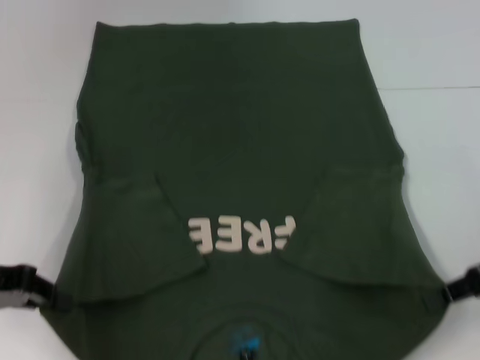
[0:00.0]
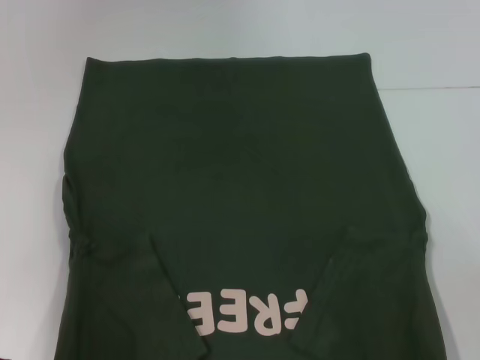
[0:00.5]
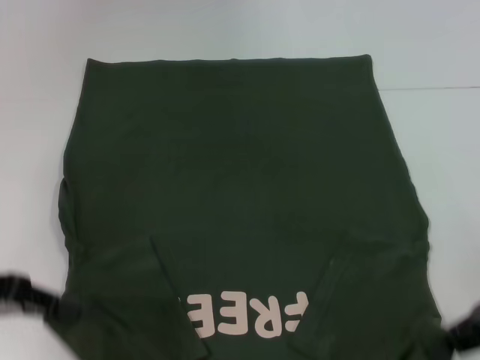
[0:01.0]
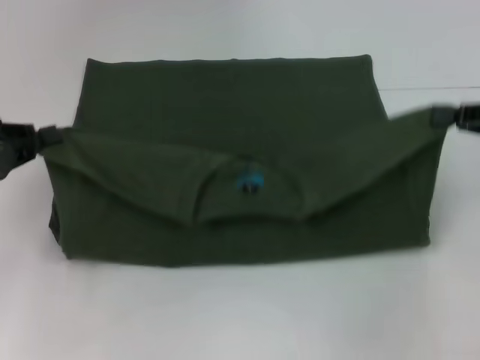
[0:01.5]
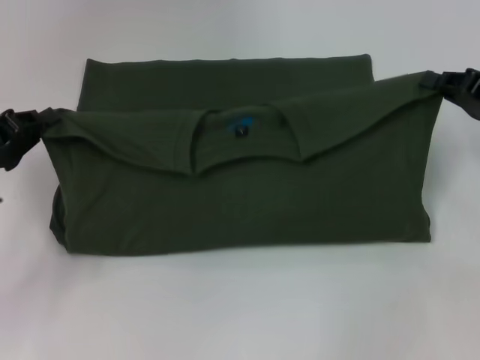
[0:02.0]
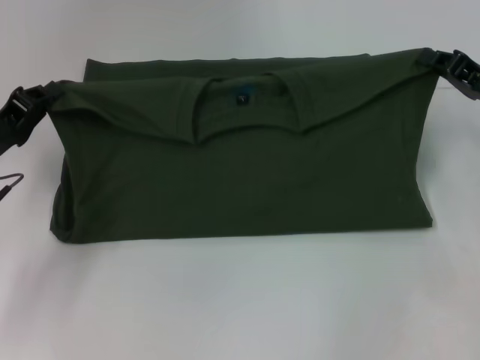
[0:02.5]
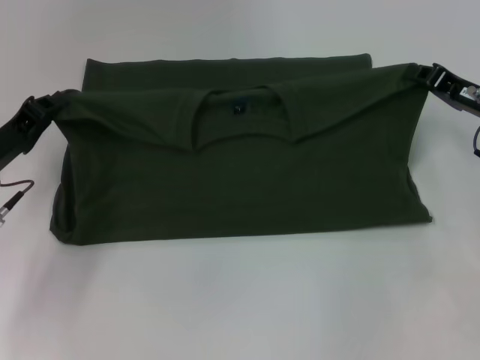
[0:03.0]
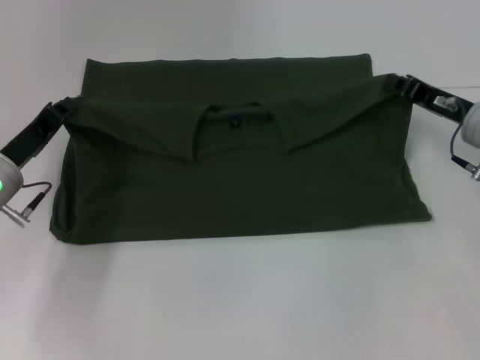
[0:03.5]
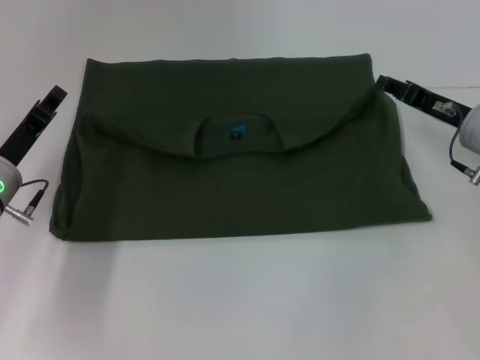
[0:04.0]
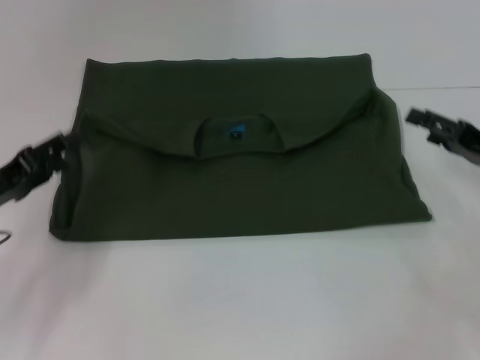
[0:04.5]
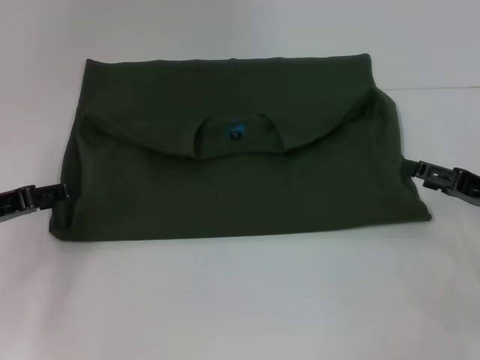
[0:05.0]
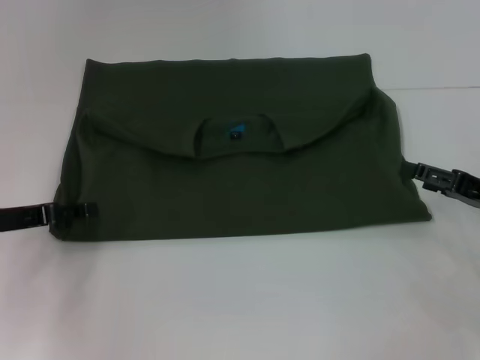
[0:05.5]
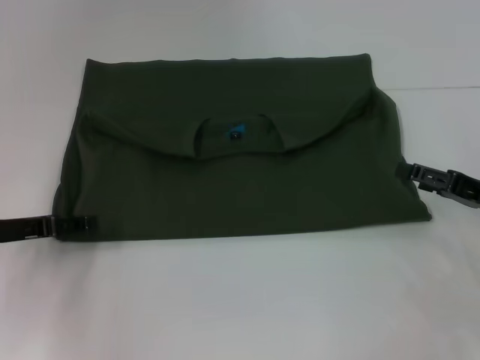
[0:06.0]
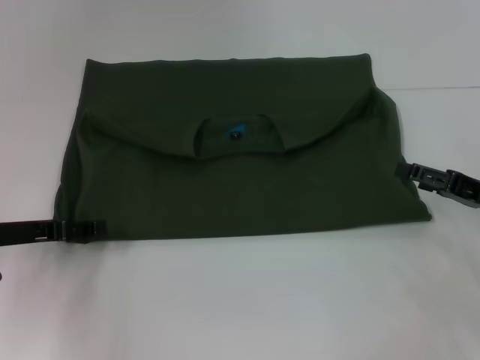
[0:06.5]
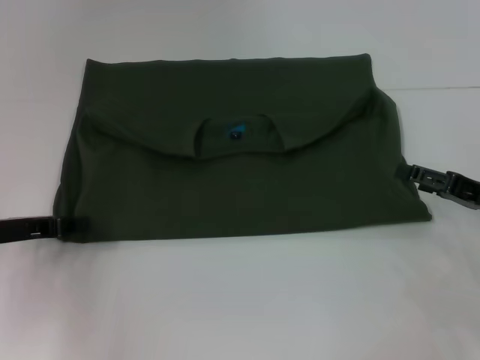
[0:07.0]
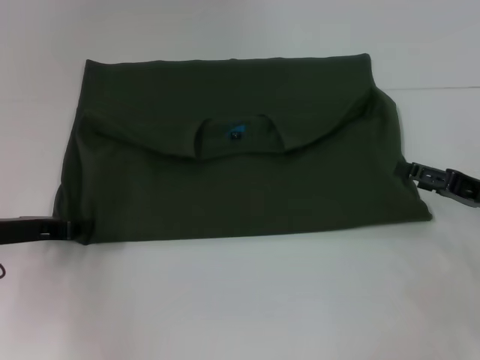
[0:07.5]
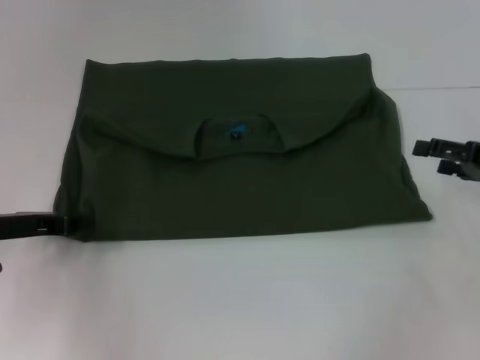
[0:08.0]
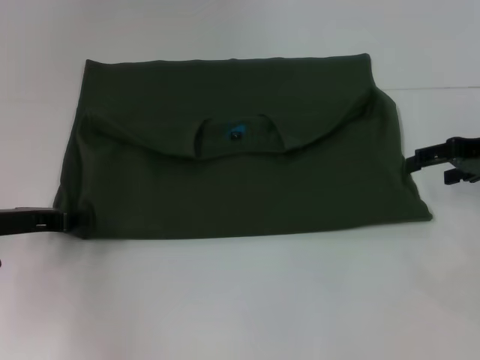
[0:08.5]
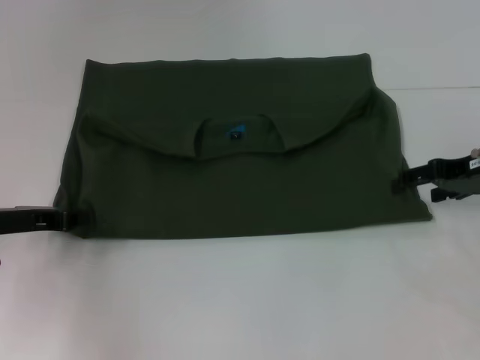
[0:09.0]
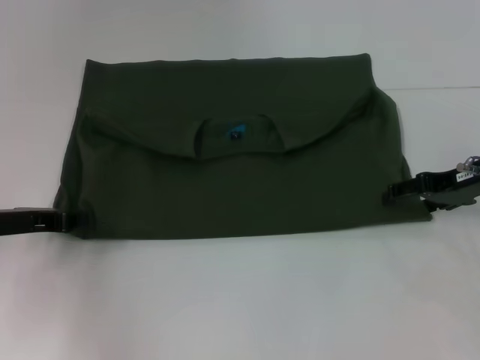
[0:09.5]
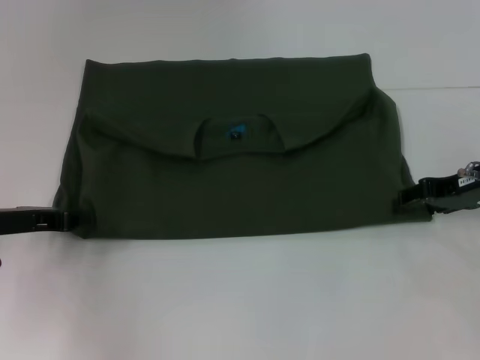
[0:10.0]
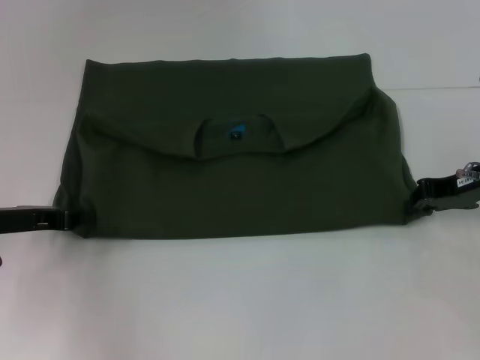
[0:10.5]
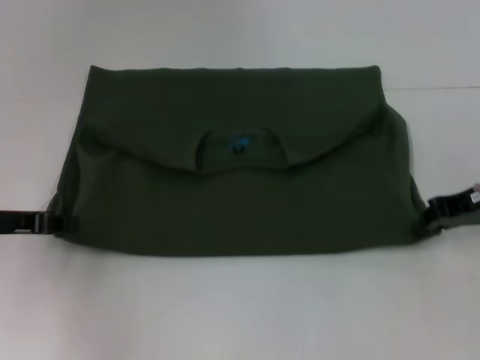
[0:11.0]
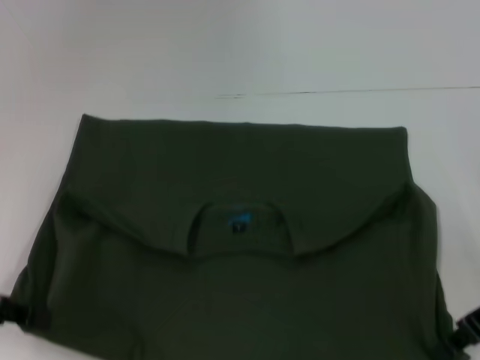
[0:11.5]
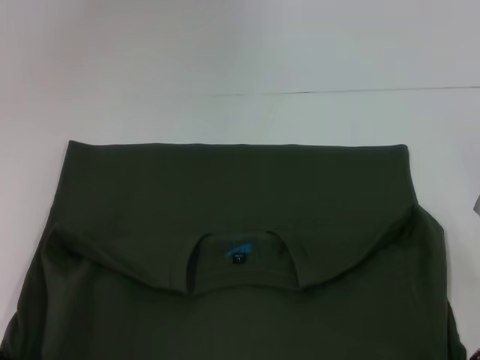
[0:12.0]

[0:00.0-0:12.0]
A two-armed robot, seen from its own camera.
Step, 0.0 to 4.0 s: Fold the clothes with your left hand.
Step, 0.0 to 4.0 s: Fold the clothes with your right hand.
Step, 4.5 to 11.5 s: Pull the clothes with your left hand.
Step, 4.5 to 11.5 s: Pull the clothes with your right hand.
0.0 to 2.0 s: The left gripper moves approximately 5 cm. Meanwhile the right gripper is displaced forward by approximately 5 cm.
2.0 to 4.0 s: The right gripper moves to the left, roughly 5 cm. The left gripper heads to the right, covering some 5 cm.
4.0 to 6.0 s: The left gripper moves roughly 5 cm, and opens up, while the right gripper is displaced backward and to the right by roughly 10 cm, and opens its fingers.
6.0 to 8.0 s: The right gripper changes place by about 5 cm.
8.0 to 10.0 s: The right gripper goes some 5 cm to the left.
10.0 to 12.0 s: Both grippers move backward, approximately 10 cm. The right gripper closes.

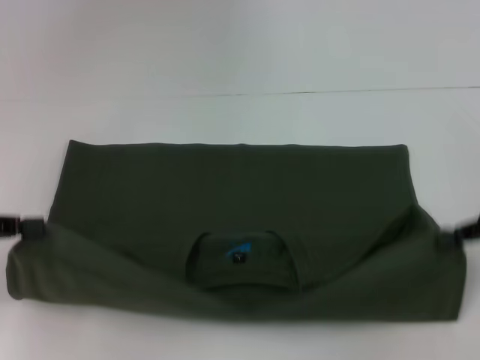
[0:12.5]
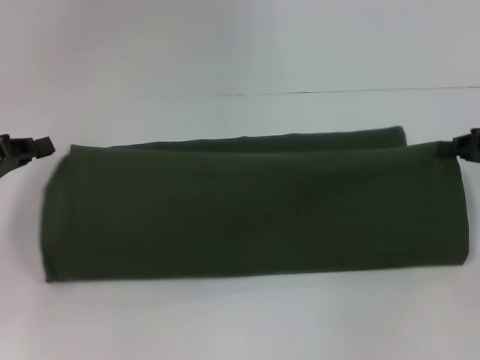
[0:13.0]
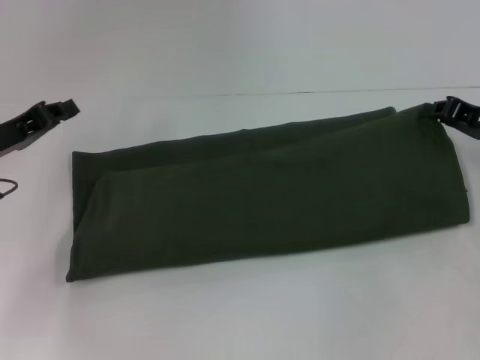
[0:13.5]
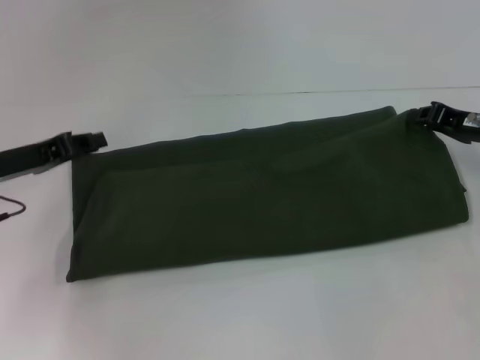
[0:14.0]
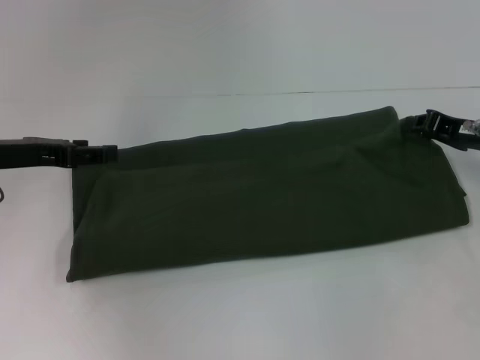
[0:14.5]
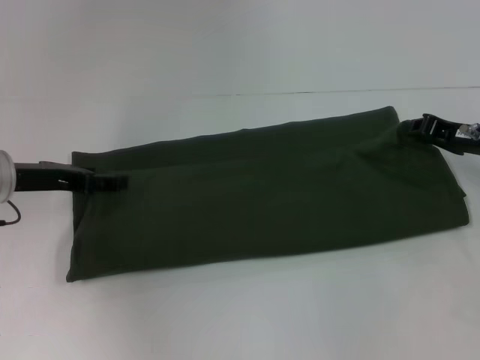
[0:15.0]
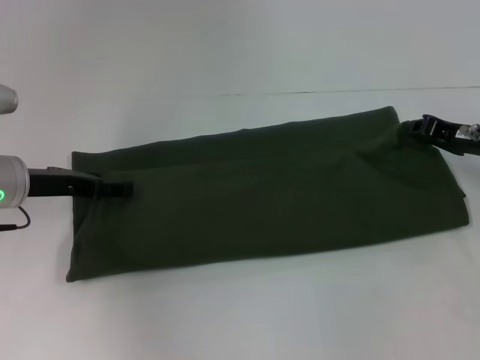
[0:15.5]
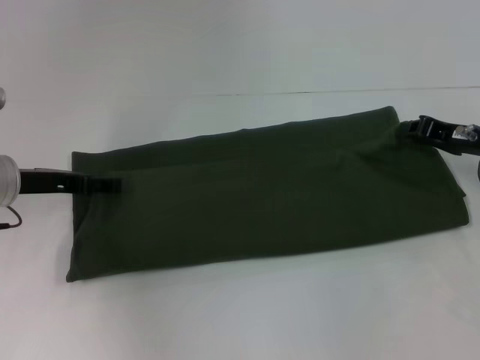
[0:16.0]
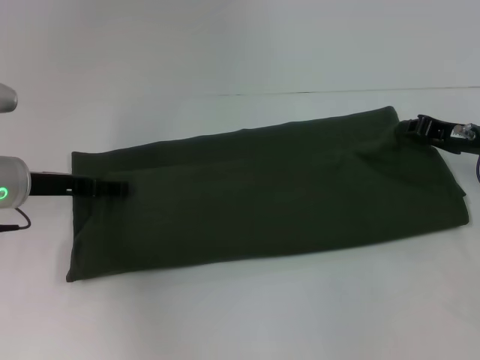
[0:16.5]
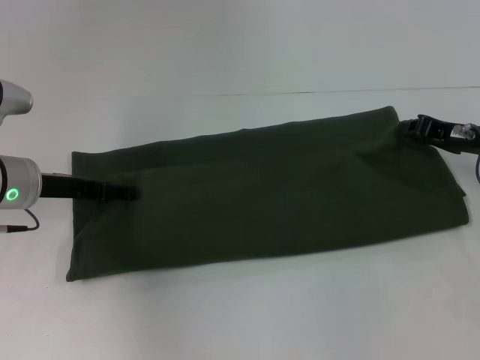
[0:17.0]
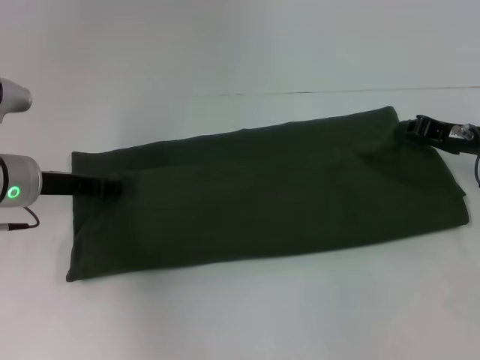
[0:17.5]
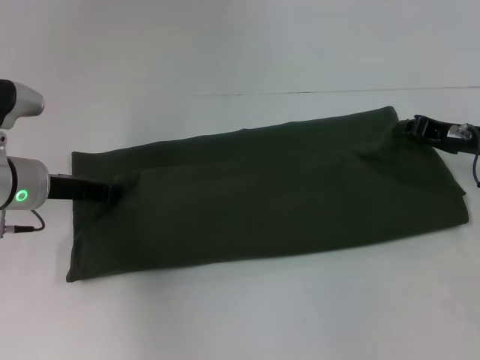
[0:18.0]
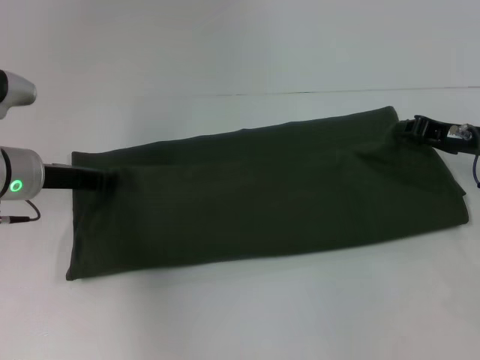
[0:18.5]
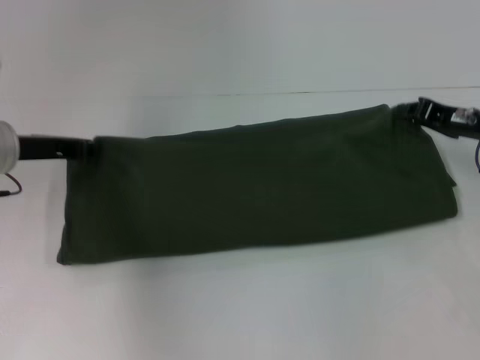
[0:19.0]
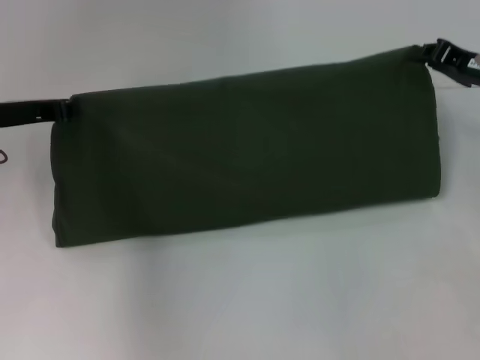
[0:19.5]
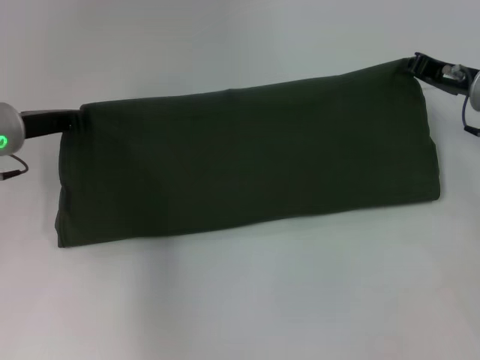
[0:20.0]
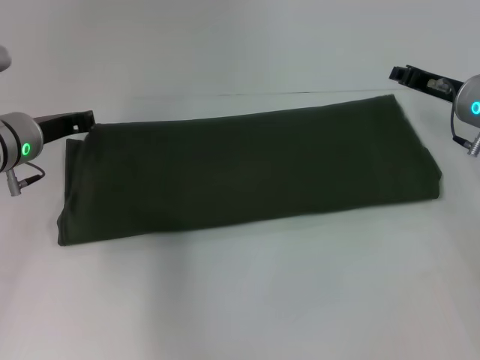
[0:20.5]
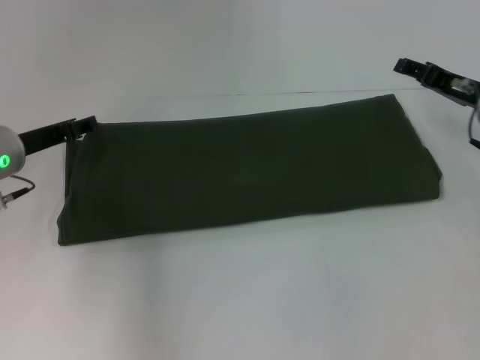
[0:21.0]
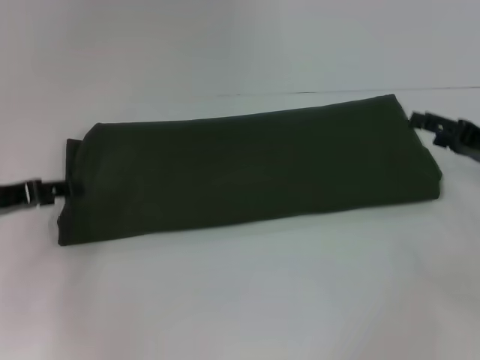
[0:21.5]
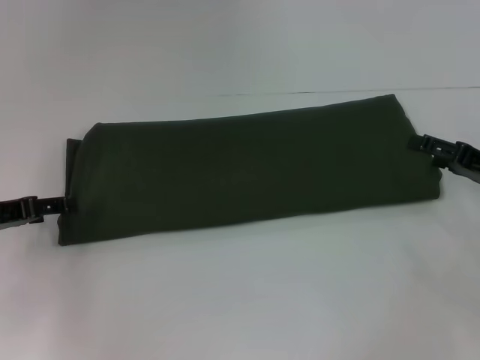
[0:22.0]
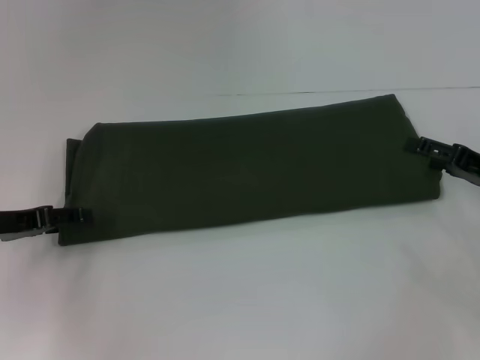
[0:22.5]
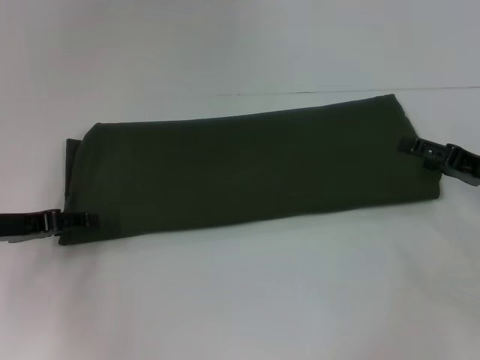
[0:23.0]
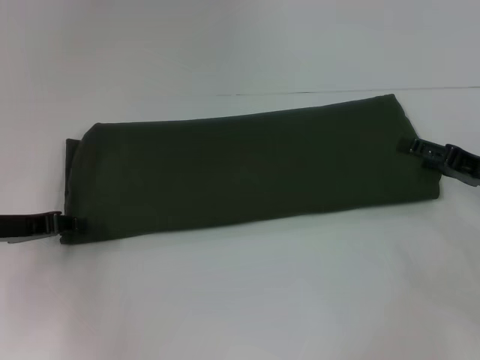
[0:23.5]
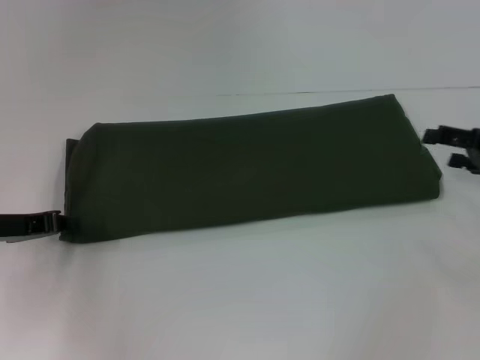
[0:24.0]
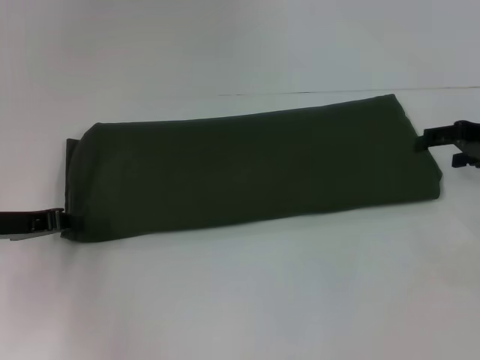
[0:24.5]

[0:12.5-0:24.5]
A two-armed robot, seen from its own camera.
Step, 12.5 to 20.0 s: Fold the clothes with your left hand.
Step, 12.5 to 20.0 s: Fold the clothes with your right hand.
12.5 to 14.5 s: The left gripper travels forward and to the right by about 10 cm, and opens; the right gripper heads forward, covering approximately 5 cm.
14.5 to 16.5 s: The left gripper ends up some 5 cm from where it was.
16.5 to 18.5 s: The left gripper closes up.
18.5 to 20.5 s: The right gripper changes place by about 5 cm.
20.5 to 22.5 s: The left gripper travels backward and to the left by approximately 10 cm, and opens up. Meanwhile the right gripper moves backward and to the right, some 10 cm, and opens.
22.5 to 24.5 s: The right gripper heads upward and forward, covering some 10 cm.

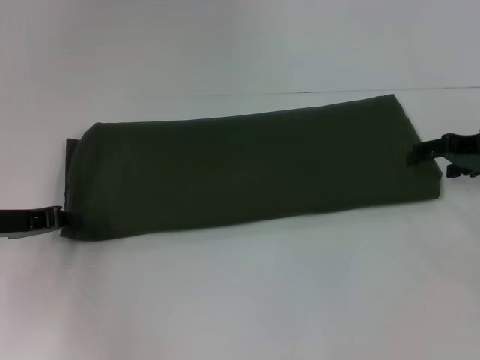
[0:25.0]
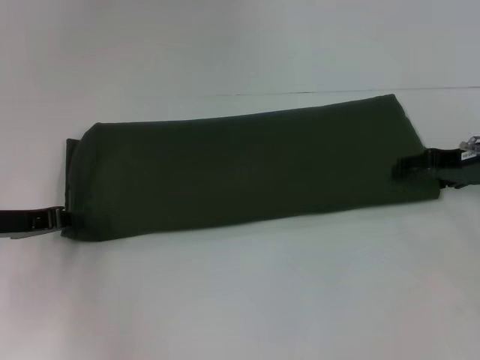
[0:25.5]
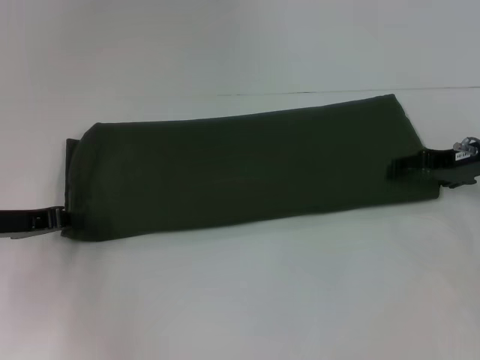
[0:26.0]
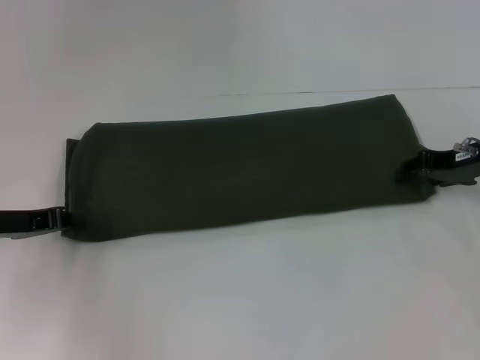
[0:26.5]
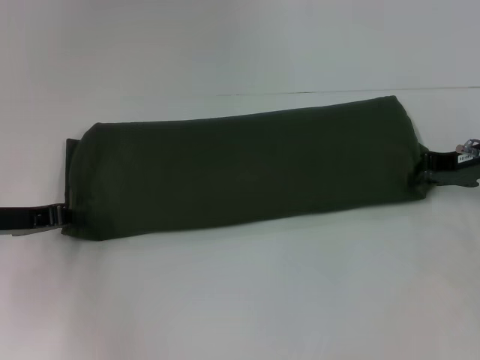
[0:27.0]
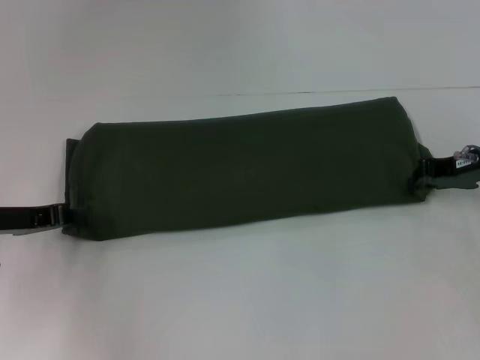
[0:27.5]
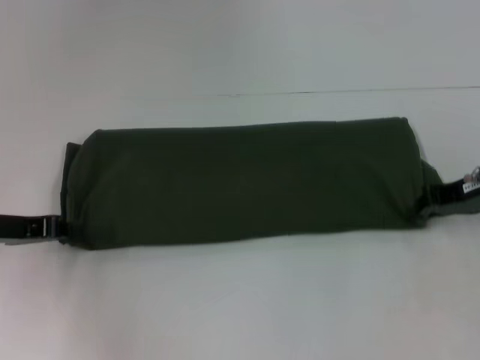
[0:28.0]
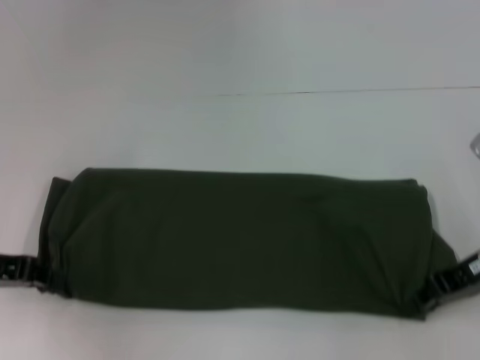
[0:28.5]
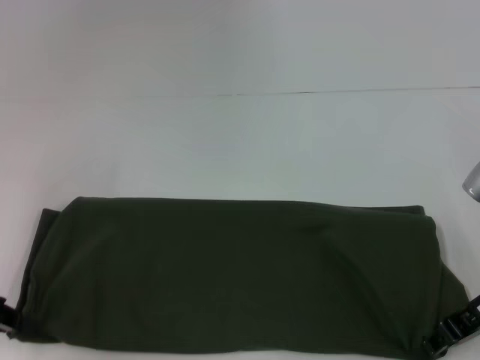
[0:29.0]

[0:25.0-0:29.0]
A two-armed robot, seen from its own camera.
25.0 to 27.0 s: The right gripper closes up.
27.0 to 29.0 s: The left gripper travels backward by roughly 5 cm. Meanwhile the right gripper travels backward by some 10 cm.
